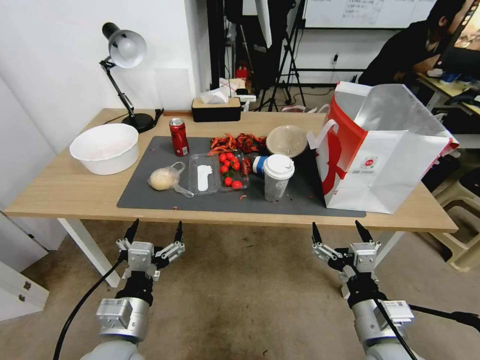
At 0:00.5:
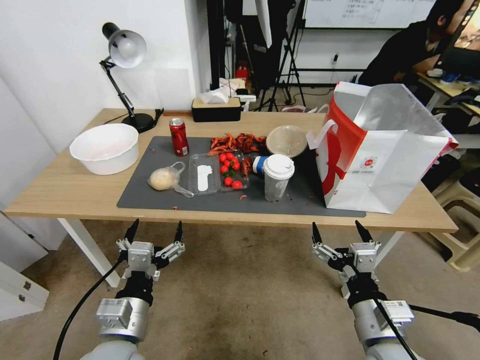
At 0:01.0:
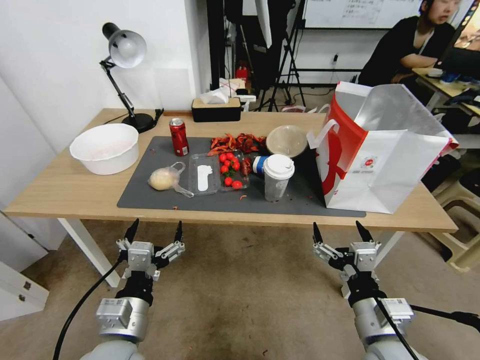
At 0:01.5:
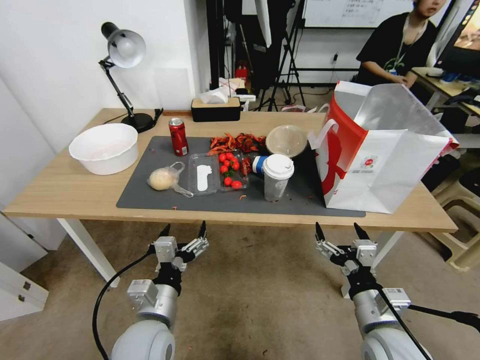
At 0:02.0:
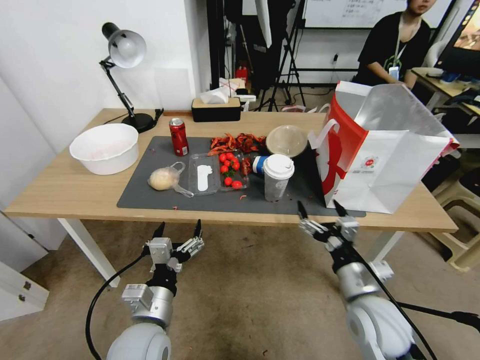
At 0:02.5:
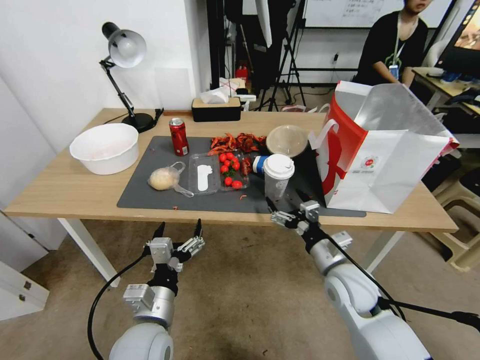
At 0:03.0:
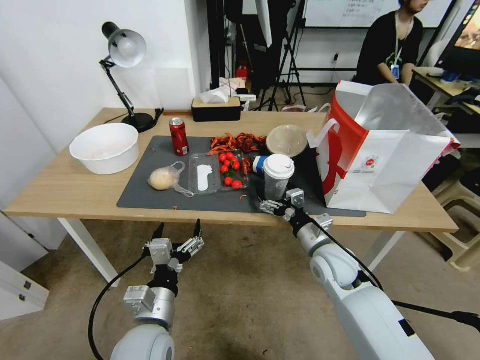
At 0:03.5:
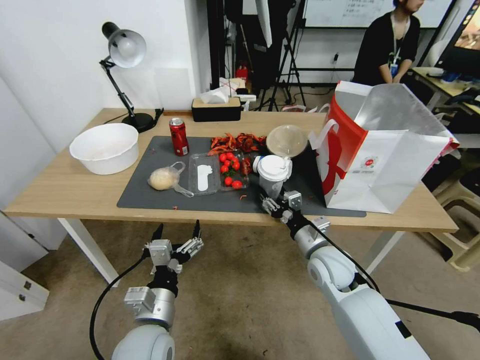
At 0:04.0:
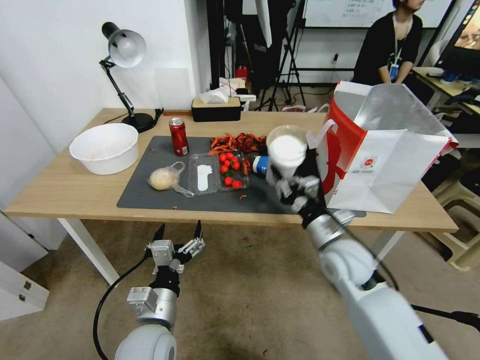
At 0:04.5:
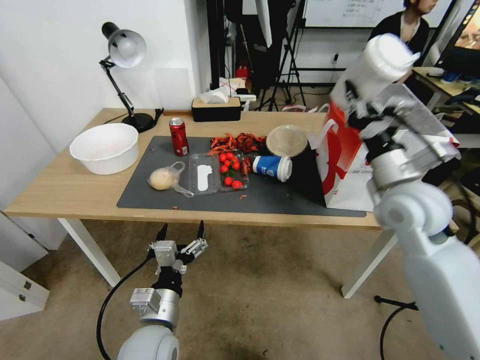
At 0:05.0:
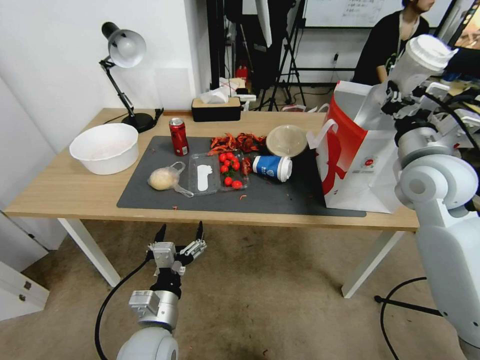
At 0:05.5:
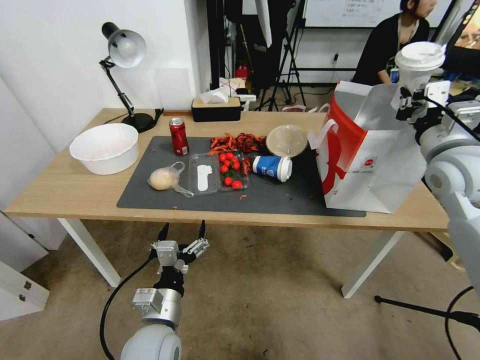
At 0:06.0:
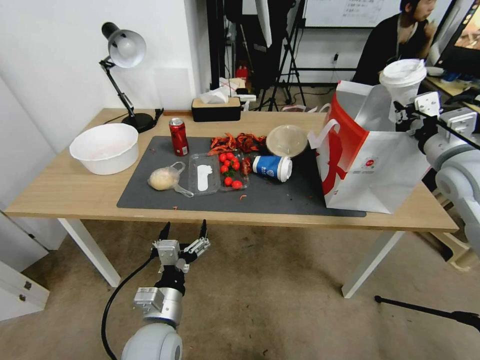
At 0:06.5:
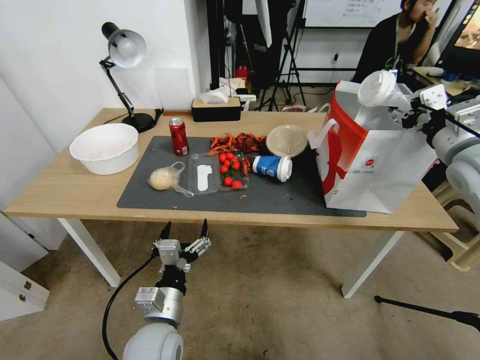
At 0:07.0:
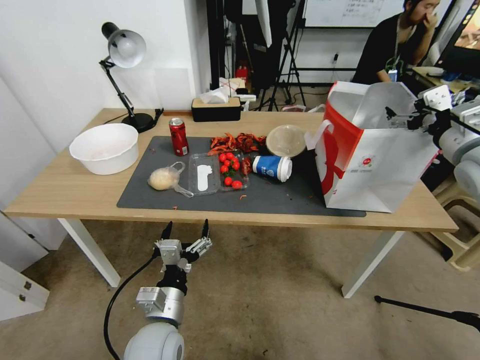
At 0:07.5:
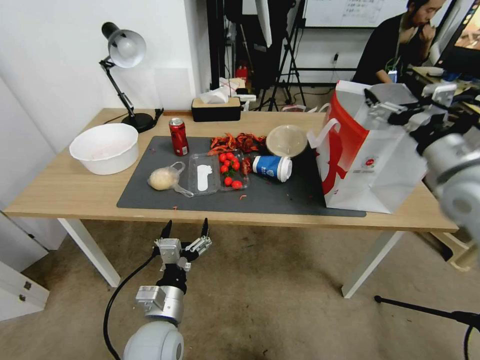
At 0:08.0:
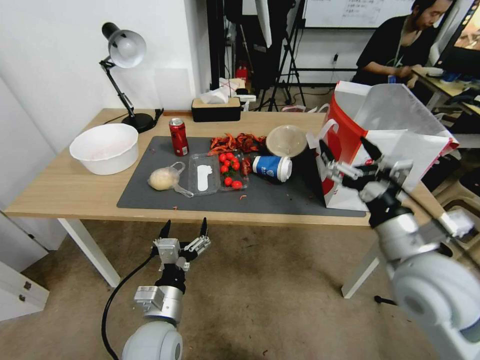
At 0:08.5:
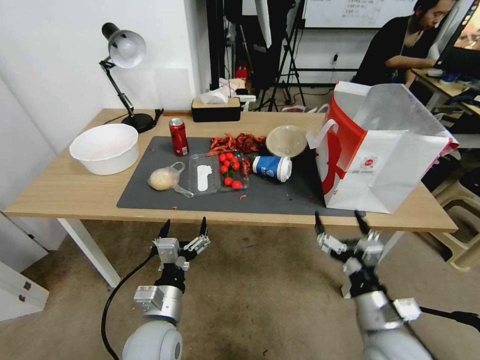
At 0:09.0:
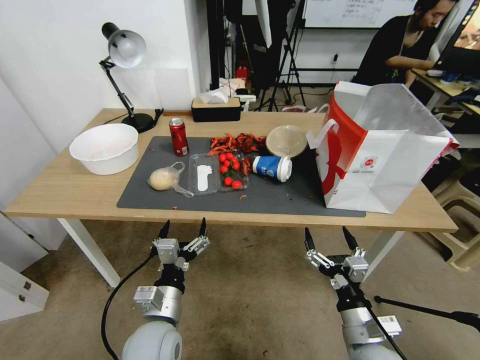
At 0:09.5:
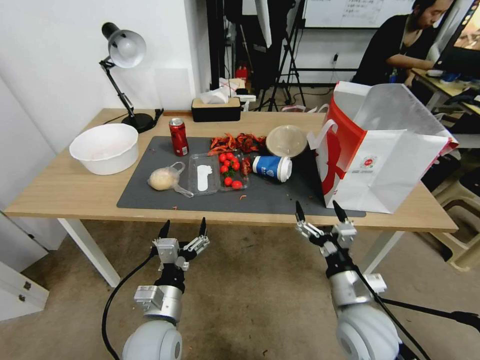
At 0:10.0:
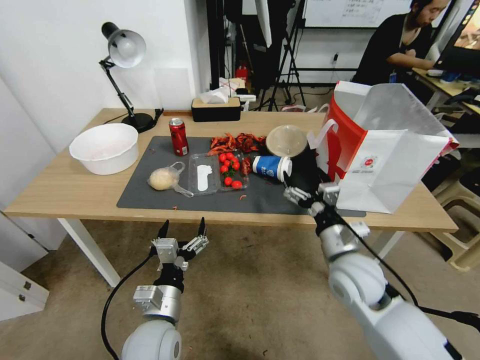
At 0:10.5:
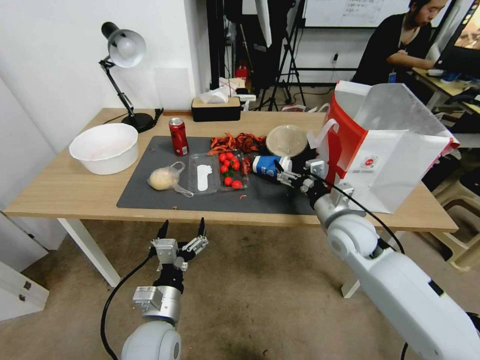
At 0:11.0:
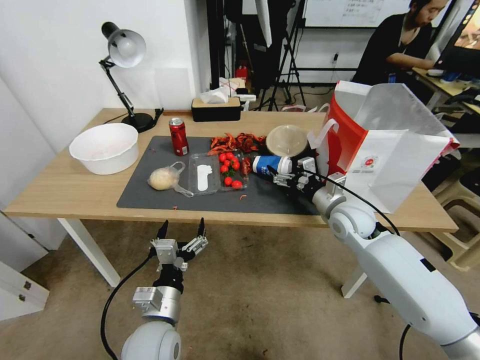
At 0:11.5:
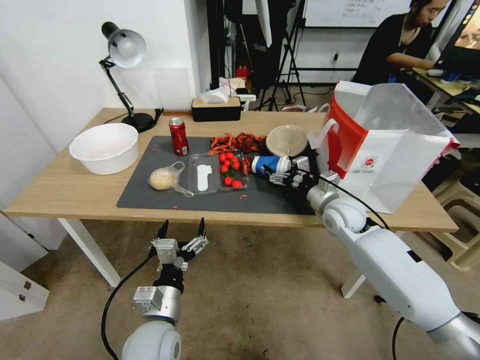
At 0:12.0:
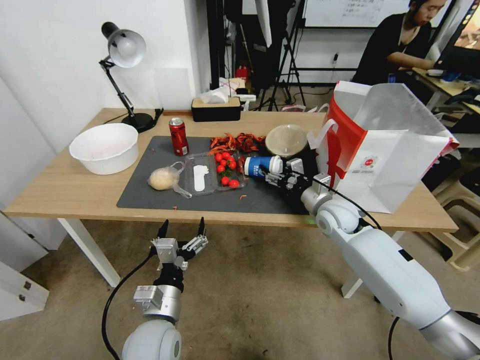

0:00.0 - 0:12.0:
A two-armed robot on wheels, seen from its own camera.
0:02.0 - 0:04.0: The right gripper heads forward, covering roughly 15 cm, and closes its fingers.
0:04.0 - 0:06.0: The right gripper goes some 25 cm upward and to the right.
0:06.0 - 0:08.0: The right gripper travels backward, to the left and downward by approximately 20 cm, and opens up.
0:08.0 - 0:10.0: The right gripper goes roughly 15 cm downward and forward.
0:10.0 - 0:12.0: The right gripper goes approximately 15 cm forward.

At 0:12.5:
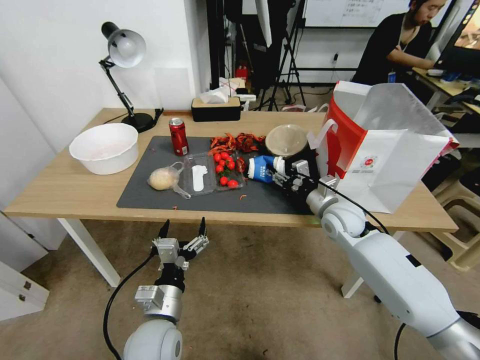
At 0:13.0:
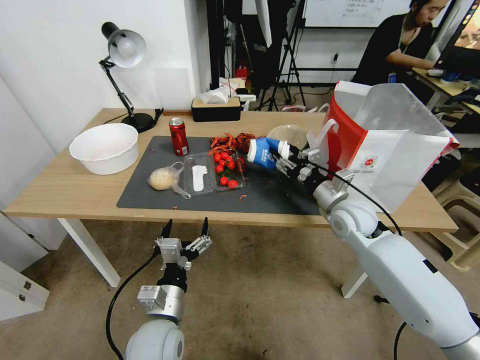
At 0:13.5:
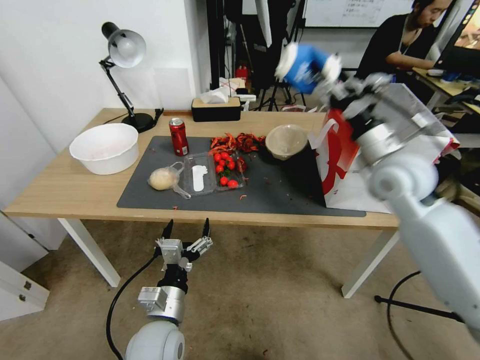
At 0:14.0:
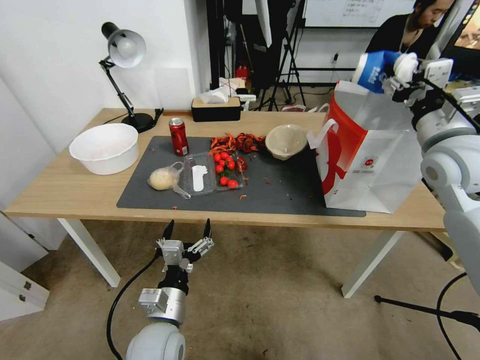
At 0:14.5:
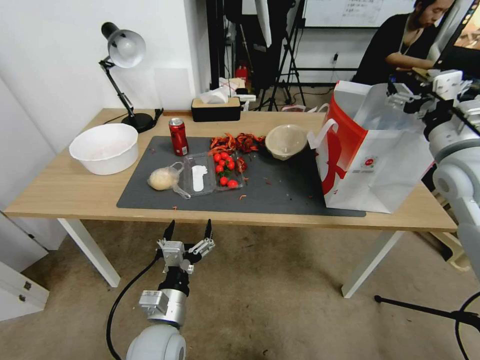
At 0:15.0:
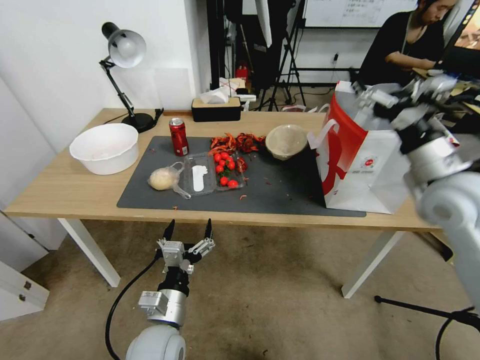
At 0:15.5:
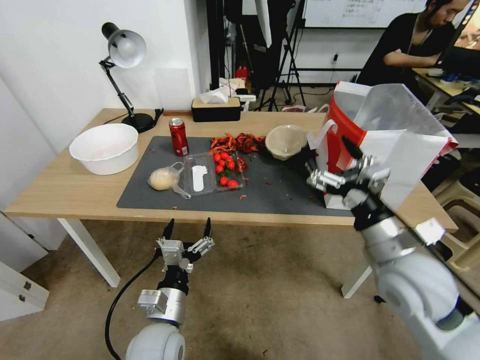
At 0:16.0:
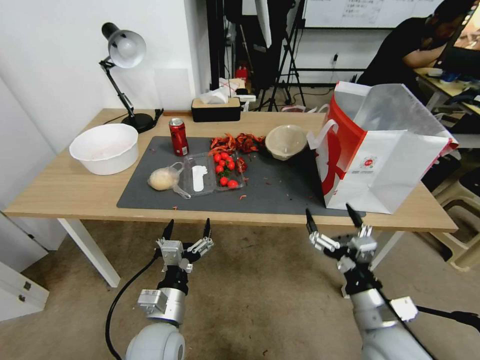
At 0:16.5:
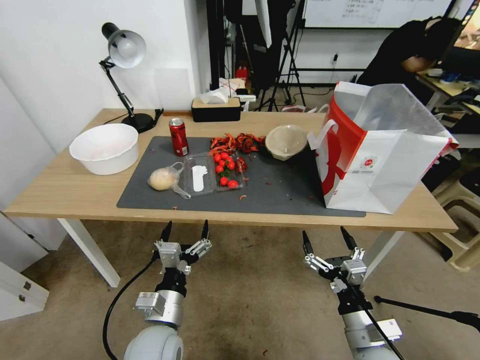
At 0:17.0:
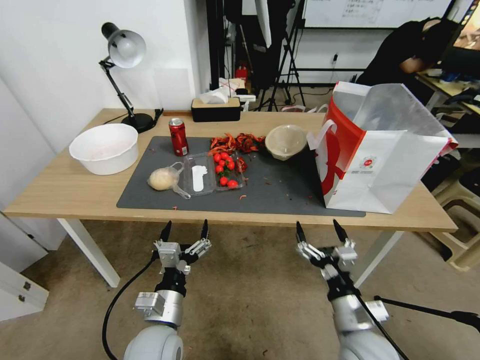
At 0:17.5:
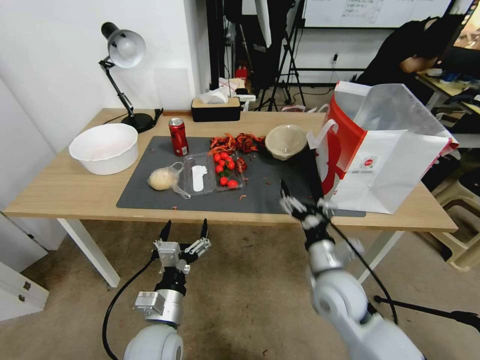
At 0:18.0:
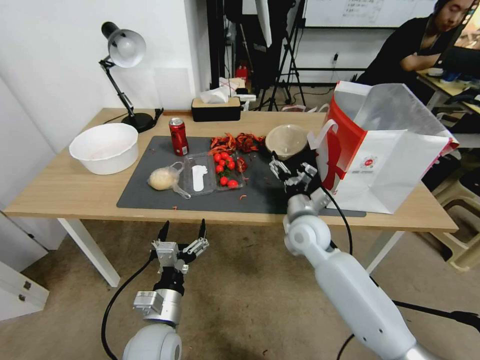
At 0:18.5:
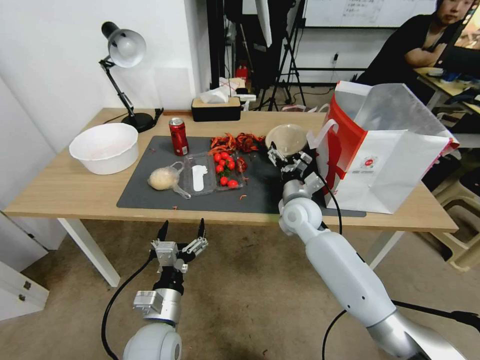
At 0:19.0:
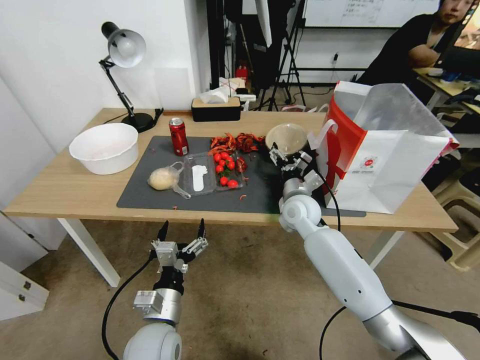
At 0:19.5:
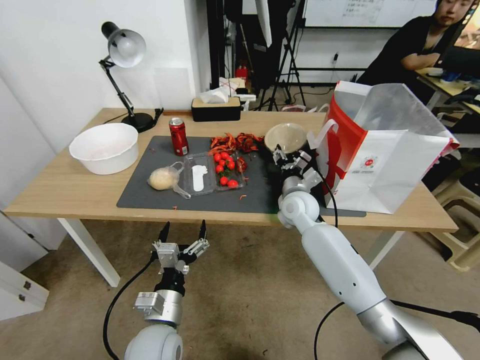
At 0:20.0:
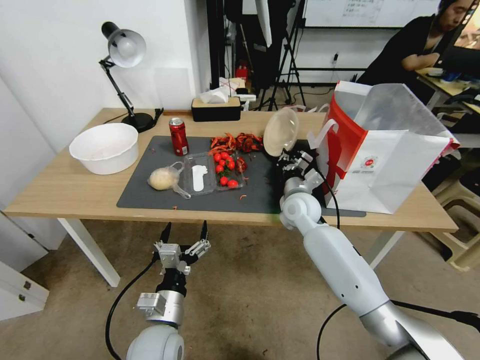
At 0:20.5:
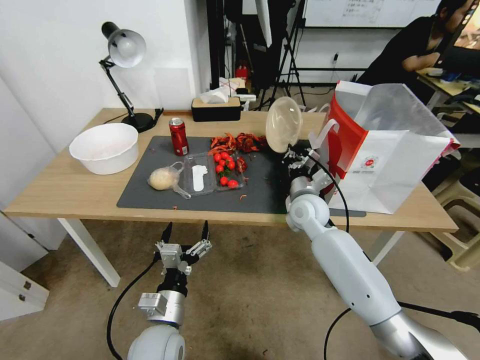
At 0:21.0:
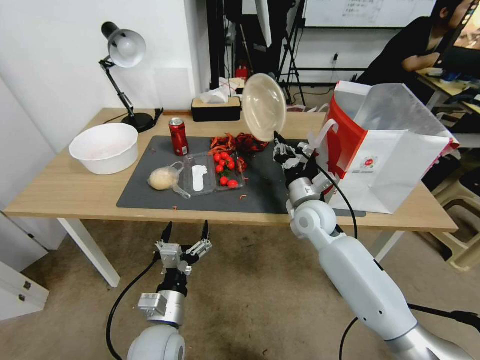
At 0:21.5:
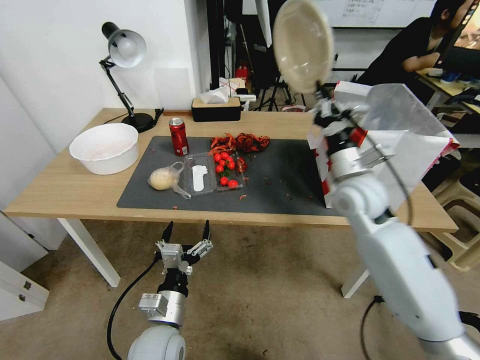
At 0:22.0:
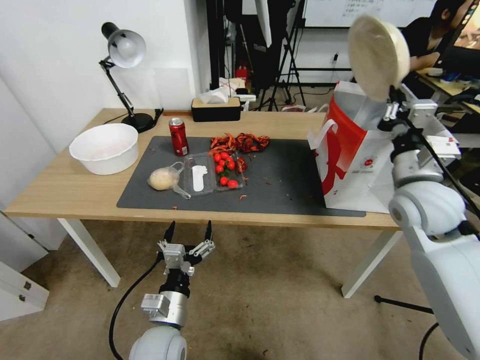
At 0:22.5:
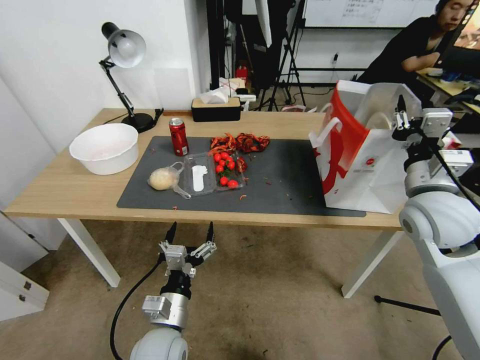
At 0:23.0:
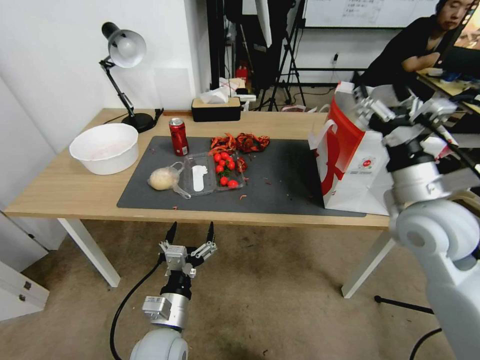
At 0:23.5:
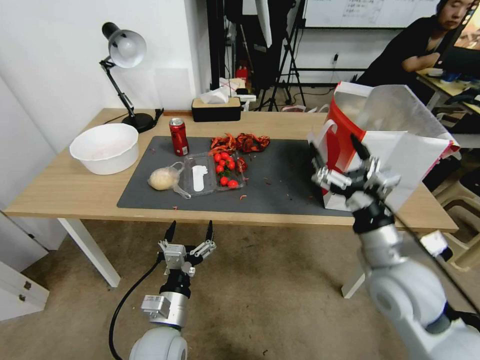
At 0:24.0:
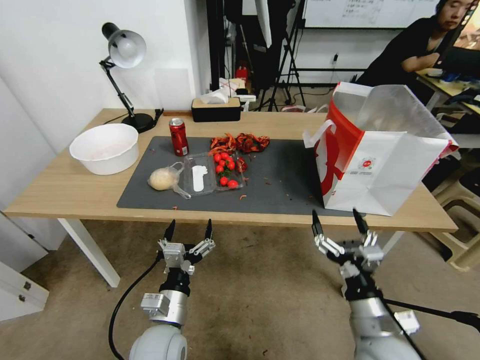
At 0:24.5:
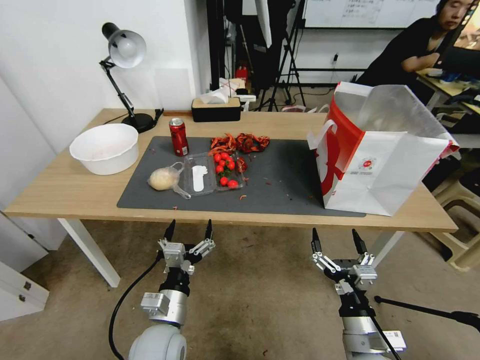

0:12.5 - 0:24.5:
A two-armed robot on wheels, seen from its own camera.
0:12.5 - 0:14.5: The right gripper is displaced upward and to the right by about 25 cm, and opens.
0:14.5 - 0:16.5: The right gripper travels downward and backward by about 35 cm.
0:16.5 - 0:18.5: The right gripper heads forward, covering approximately 30 cm.
0:18.5 - 0:20.5: The right gripper closes.
0:20.5 - 0:22.5: The right gripper heads to the right, upward and backward, covering some 25 cm.
0:22.5 - 0:24.5: The right gripper heads downward and backward, covering about 30 cm, and opens its fingers.

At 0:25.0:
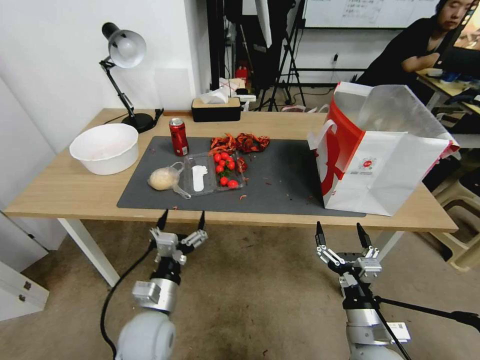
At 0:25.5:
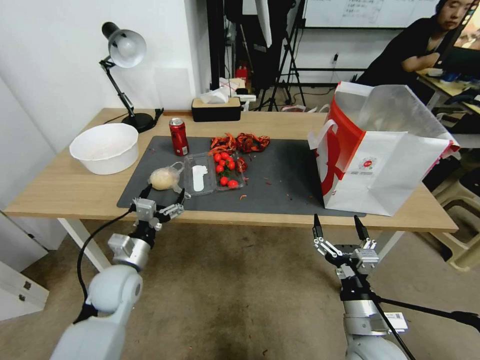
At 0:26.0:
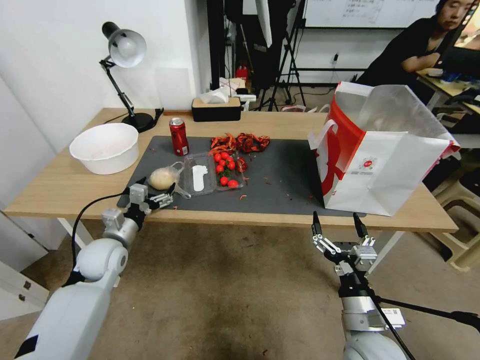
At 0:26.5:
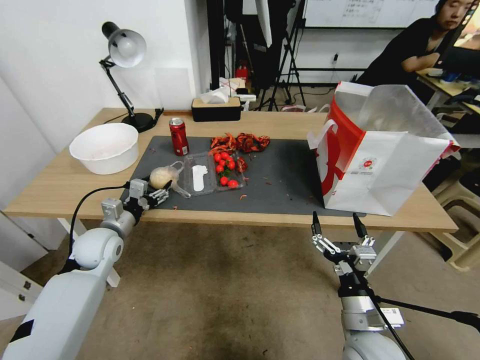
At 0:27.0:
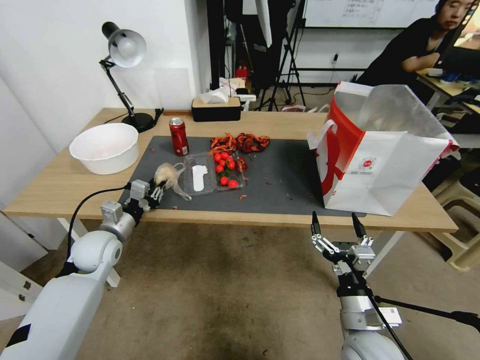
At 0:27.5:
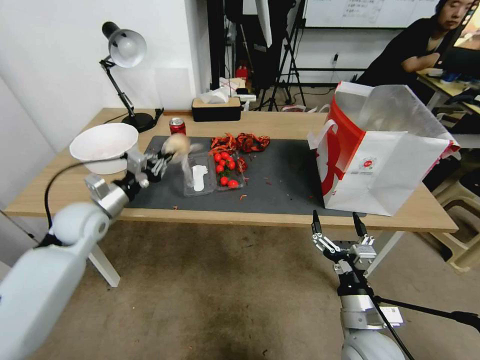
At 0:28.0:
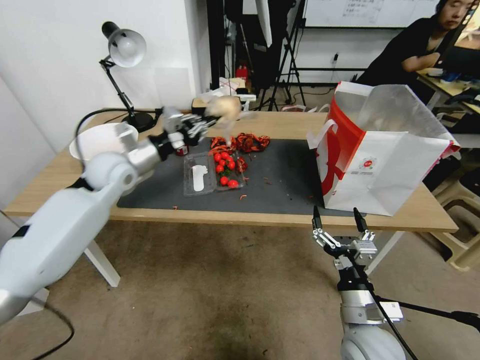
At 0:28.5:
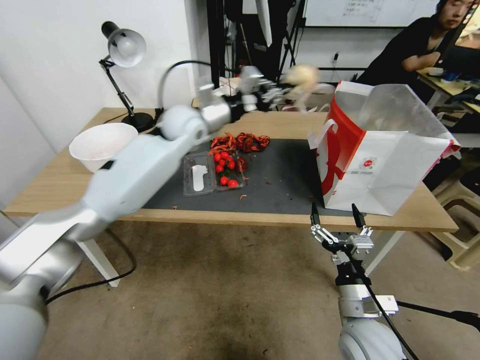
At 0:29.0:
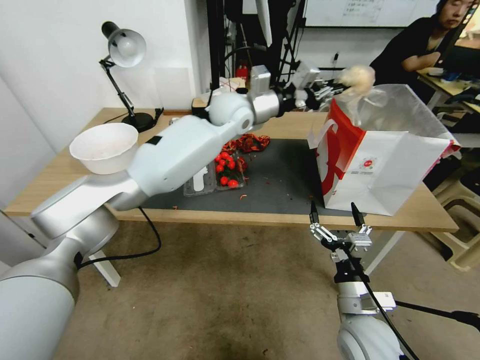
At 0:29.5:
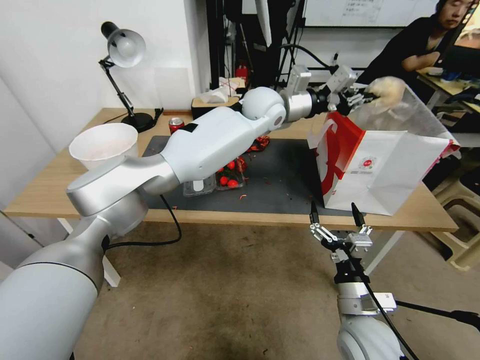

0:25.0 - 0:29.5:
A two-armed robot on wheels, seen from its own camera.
0:25.0 - 0:27.0: The left gripper travels forward and to the left by about 20 cm, and closes its fingers.
0:27.0 - 0:29.5: The left gripper goes roughly 50 cm to the right, upward and forward.